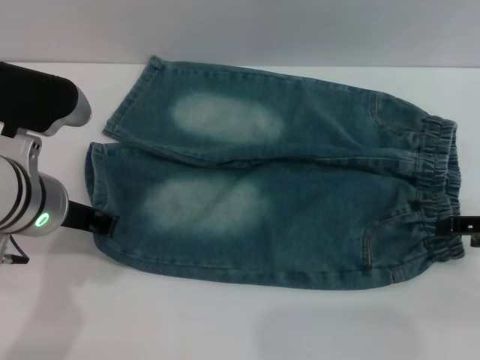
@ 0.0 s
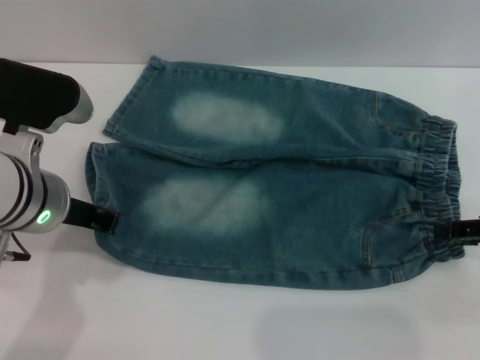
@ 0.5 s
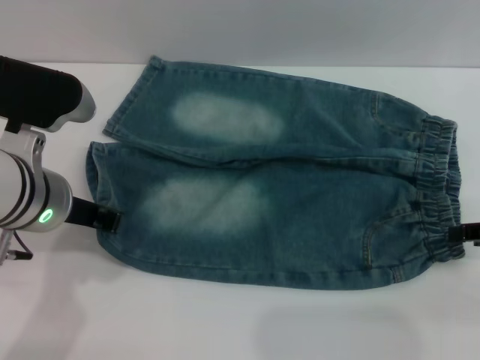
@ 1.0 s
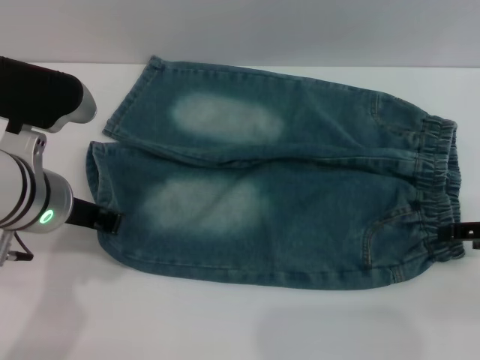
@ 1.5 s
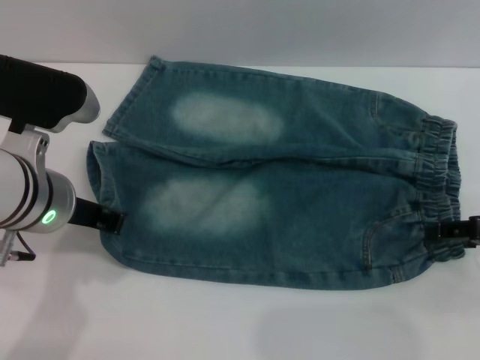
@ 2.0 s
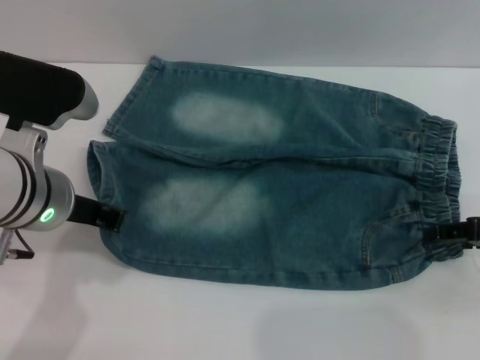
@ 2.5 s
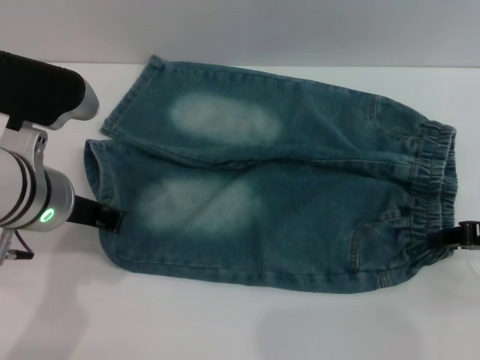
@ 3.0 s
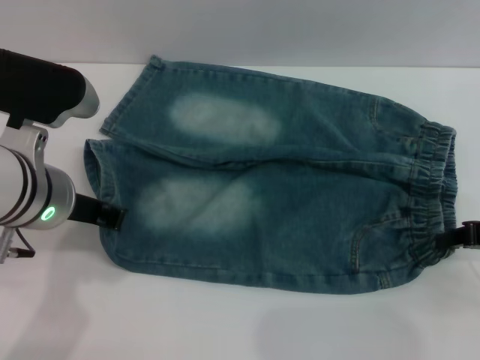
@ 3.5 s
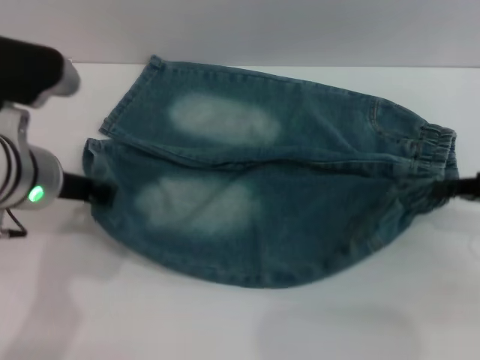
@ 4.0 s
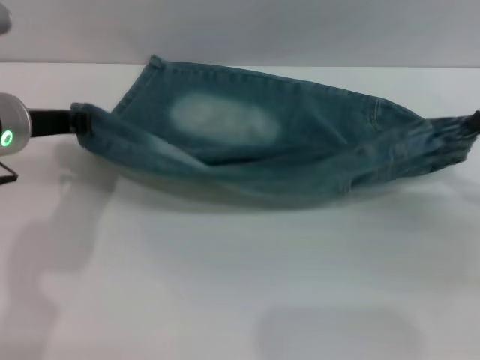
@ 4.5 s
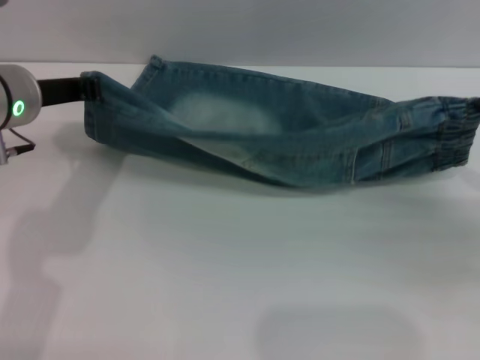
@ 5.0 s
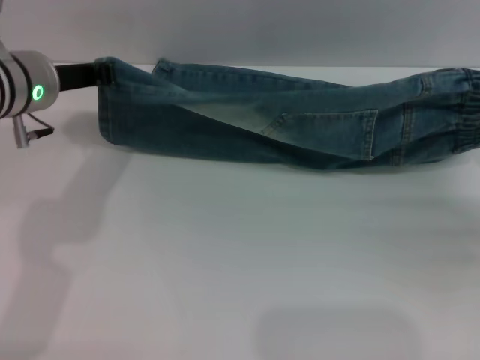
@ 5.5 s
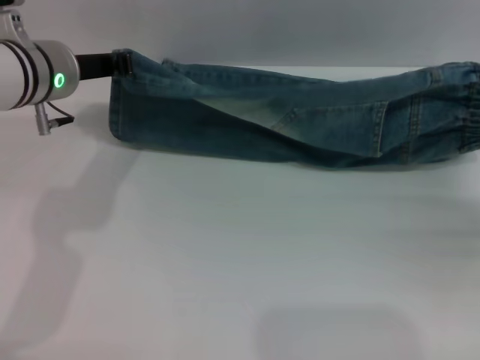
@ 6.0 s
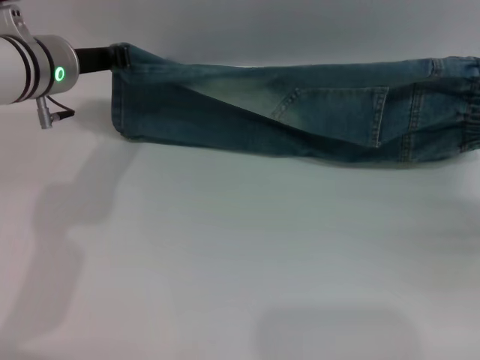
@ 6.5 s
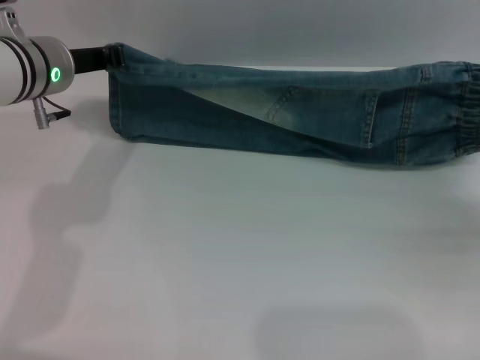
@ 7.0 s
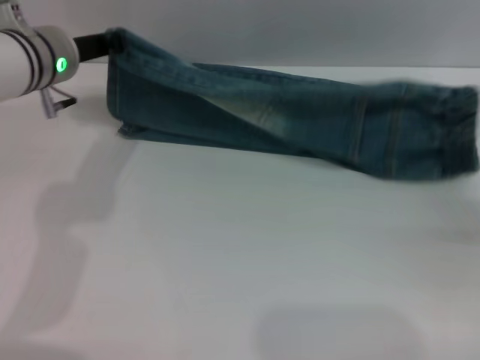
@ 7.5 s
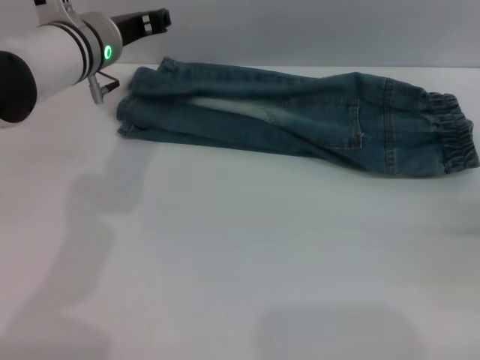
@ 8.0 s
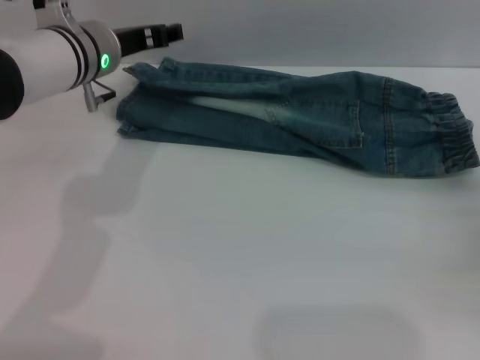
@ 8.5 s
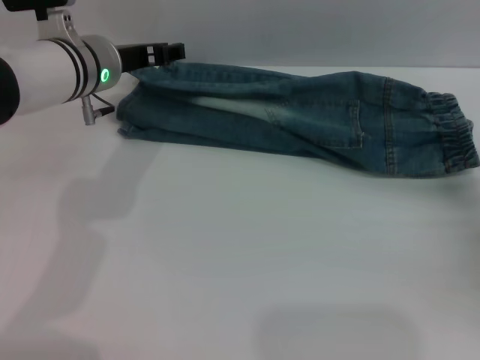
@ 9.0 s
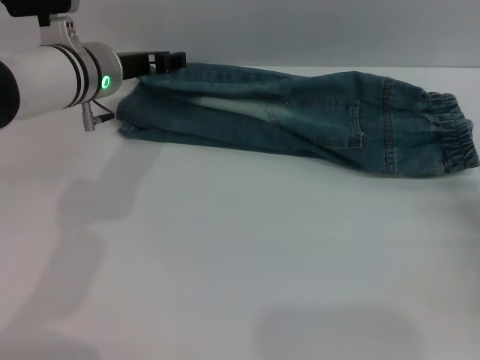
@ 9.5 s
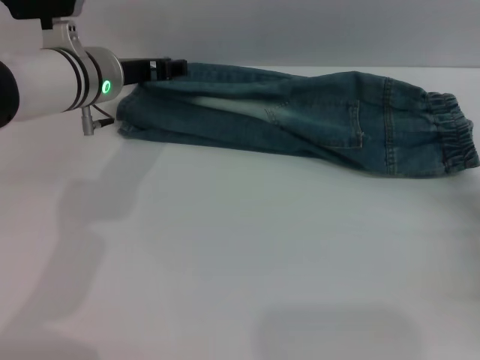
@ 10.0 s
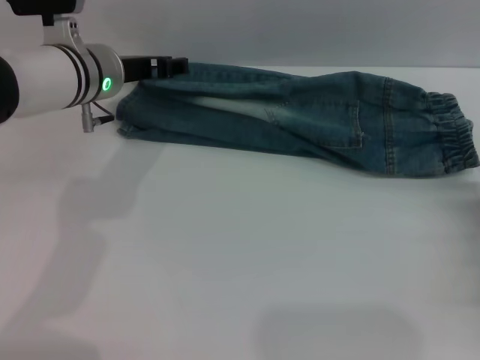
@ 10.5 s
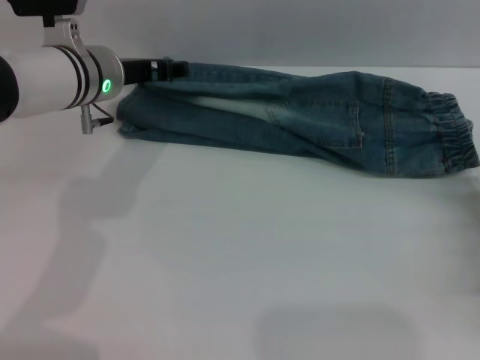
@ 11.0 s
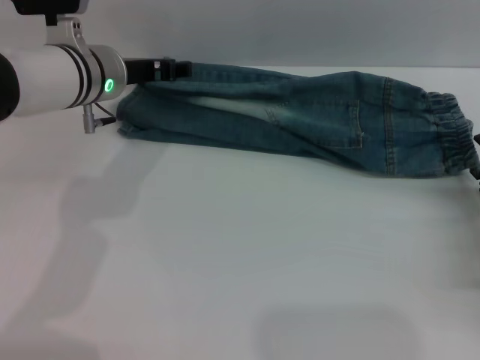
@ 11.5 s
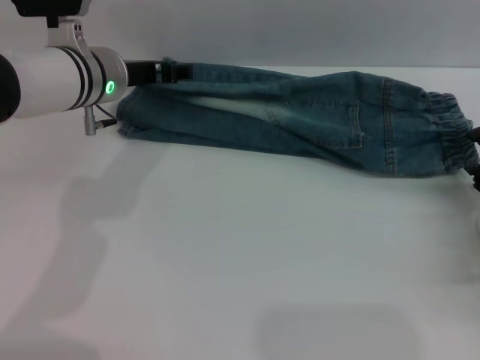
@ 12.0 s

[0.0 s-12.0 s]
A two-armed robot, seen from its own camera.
Step, 0.0 to 8.0 s: Fold the bottom of the pants upward with both grippers.
0.0 to 2.0 s: There are only small adjustments of the grippers.
2.0 to 4.0 s: The right gripper closes its fingers.
4.0 to 6.0 s: The left gripper heads forward, covering roughly 10 cm; the right gripper heads downward, covering roughly 5 cm.
6.0 to 8.0 s: The right gripper opens. Meanwhile the left gripper shifts by some 5 cm.
8.0 to 10.0 s: The left gripper opens up, while the right gripper is displaced downward and backward by some 10 cm, and opens up.
10.0 to 12.0 s: There are only small adjustments of the grippers.

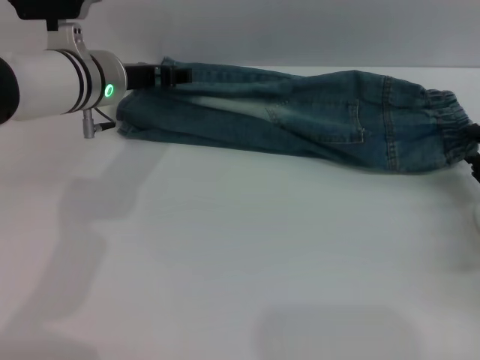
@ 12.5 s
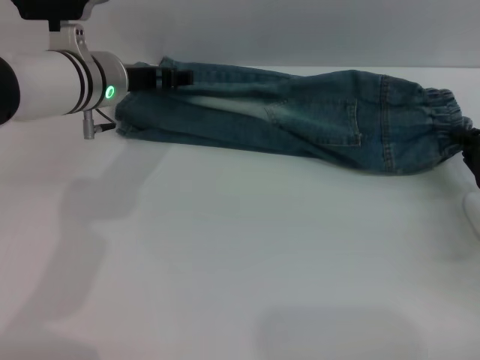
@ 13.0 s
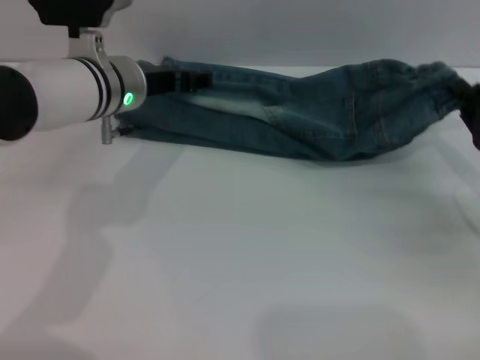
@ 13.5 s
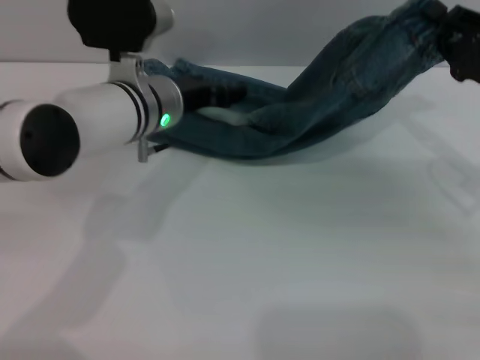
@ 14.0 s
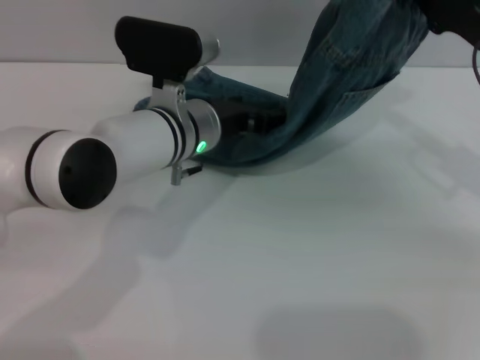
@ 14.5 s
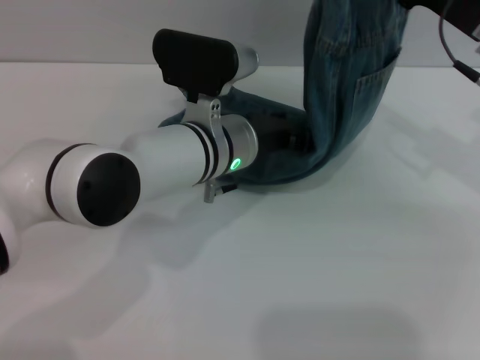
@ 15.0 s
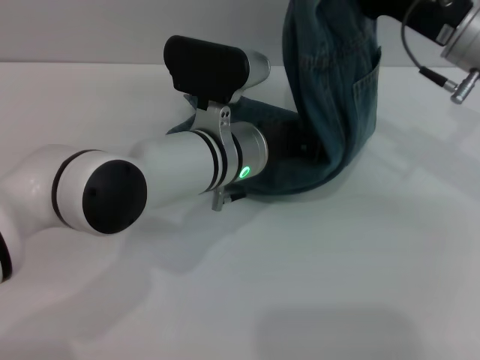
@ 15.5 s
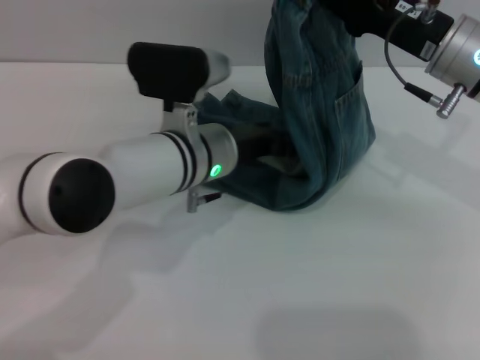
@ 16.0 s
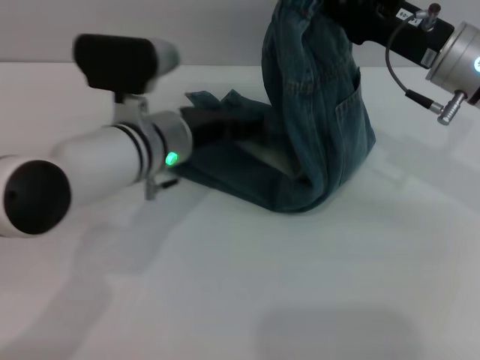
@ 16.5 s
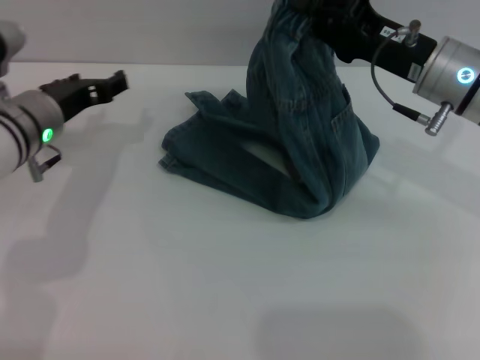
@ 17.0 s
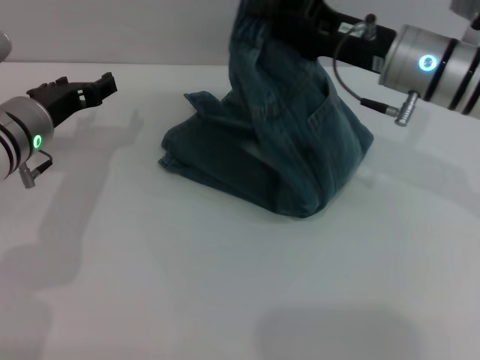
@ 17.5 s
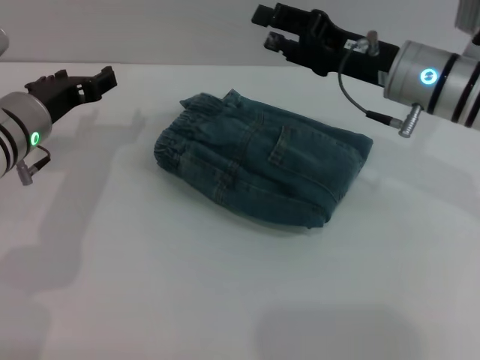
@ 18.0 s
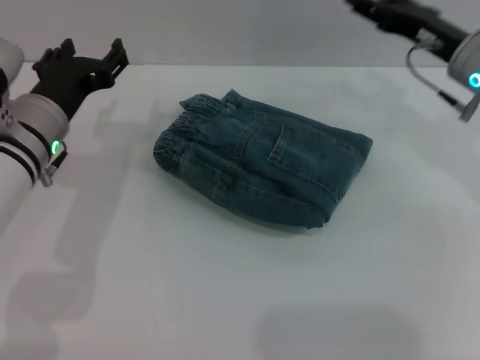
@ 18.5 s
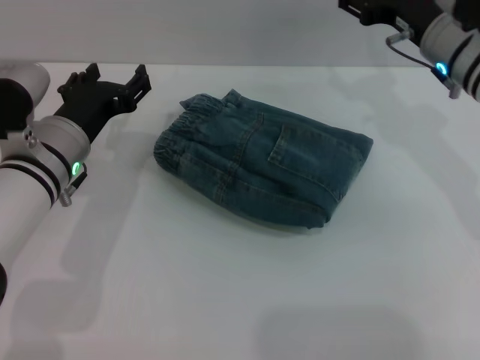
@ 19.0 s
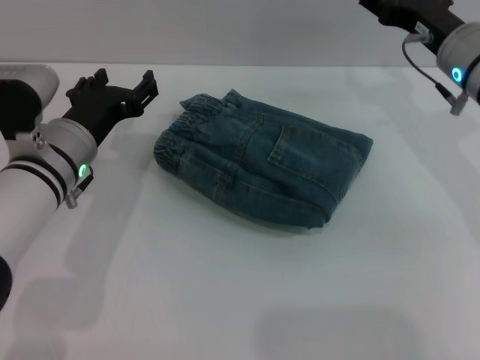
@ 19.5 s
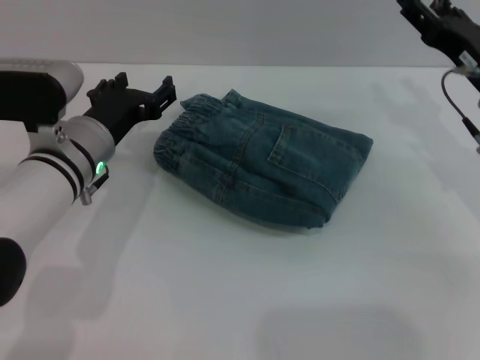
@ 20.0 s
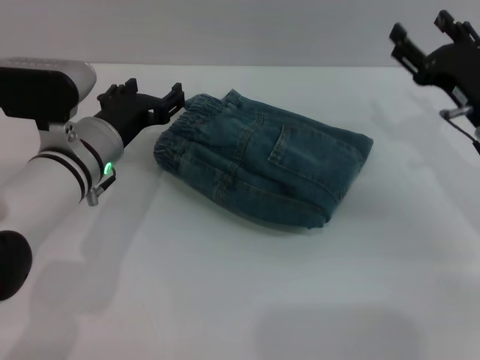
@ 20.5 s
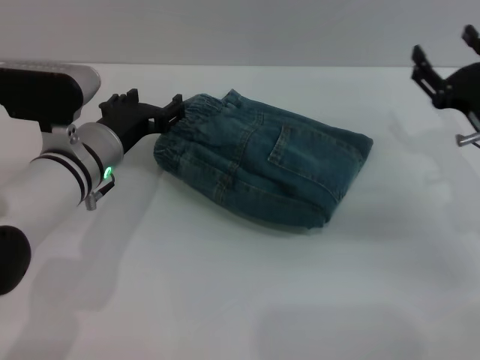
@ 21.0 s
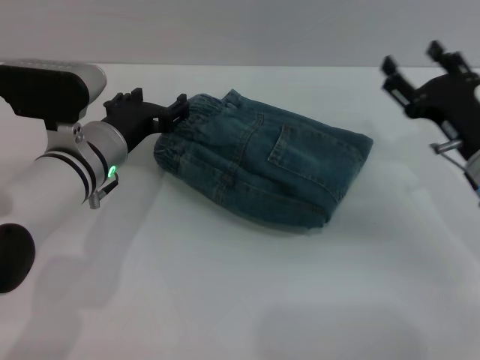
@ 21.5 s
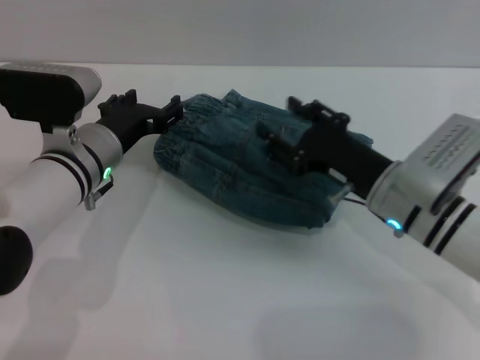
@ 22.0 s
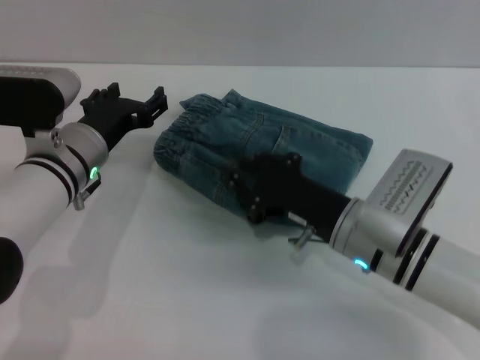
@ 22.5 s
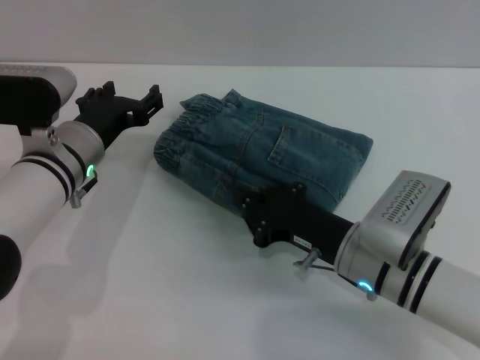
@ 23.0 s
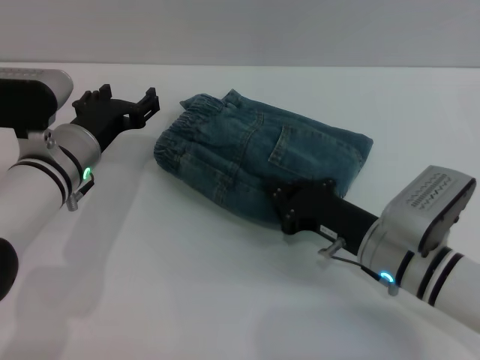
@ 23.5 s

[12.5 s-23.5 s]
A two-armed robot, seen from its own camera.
Step, 12.5 to 18.0 s: Fold the pants from right to left with the right gripper.
12.5 to 14.5 s: The right gripper travels upward, forward and to the left by roughly 15 cm, and closes, while the left gripper travels to the right by some 10 cm.
14.5 to 16.0 s: The right gripper heads to the left, covering roughly 5 cm.
16.0 to 18.0 s: The right gripper opens up. The left gripper heads to the left, covering approximately 15 cm.
18.0 to 20.0 s: The right gripper goes approximately 10 cm to the right, and opens up. Meanwhile the left gripper heads to the right, covering some 5 cm.
20.0 to 21.5 s: The right gripper shifts by about 5 cm.
21.5 to 23.5 s: The right gripper heads to the left and backward, covering roughly 10 cm, and closes up.

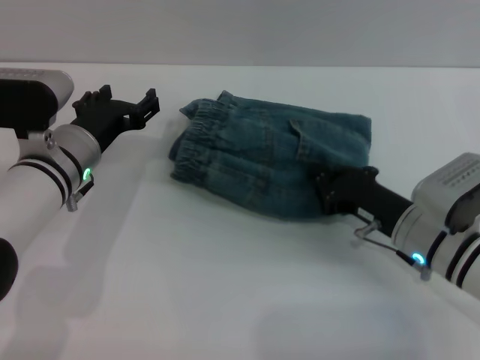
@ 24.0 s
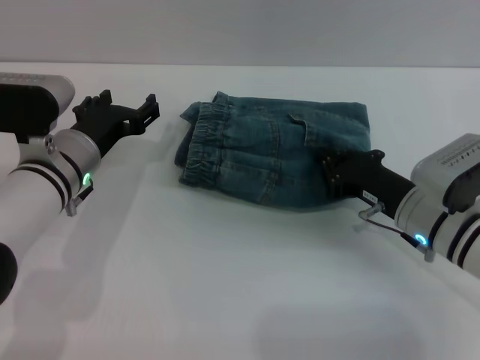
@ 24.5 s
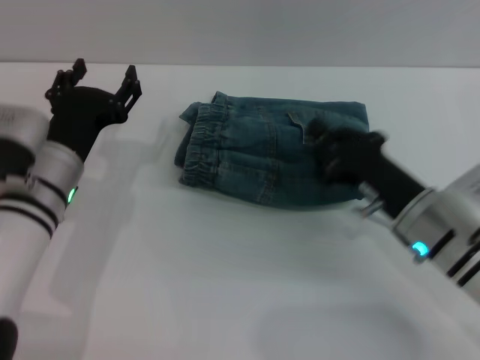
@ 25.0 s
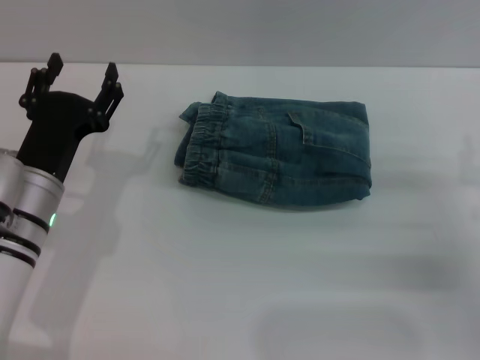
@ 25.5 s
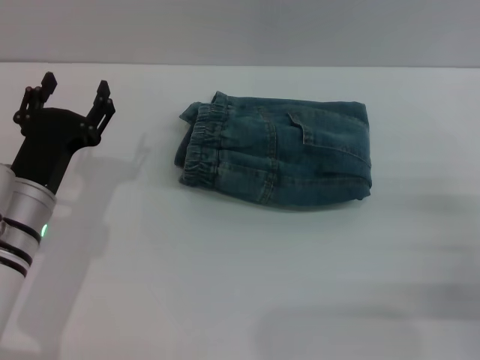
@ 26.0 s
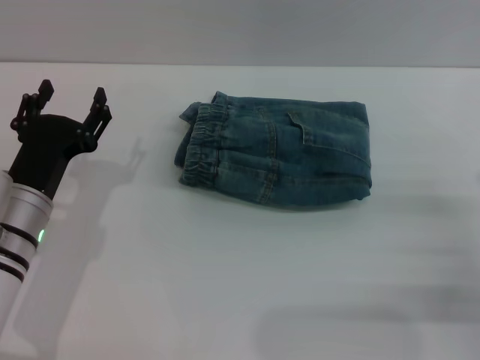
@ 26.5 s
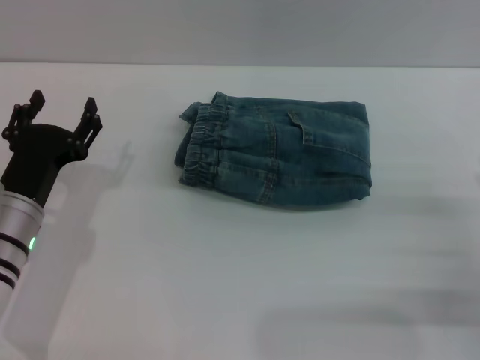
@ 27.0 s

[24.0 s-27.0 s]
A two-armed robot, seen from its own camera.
24.0 to 25.5 s: The left gripper travels backward by roughly 5 cm. Meanwhile the right gripper moves to the right, some 10 cm.
